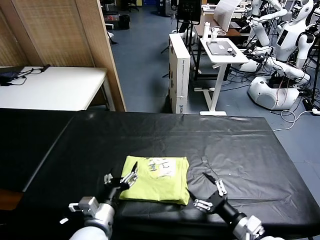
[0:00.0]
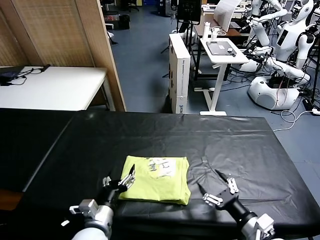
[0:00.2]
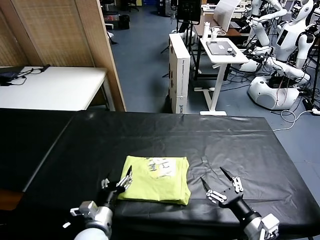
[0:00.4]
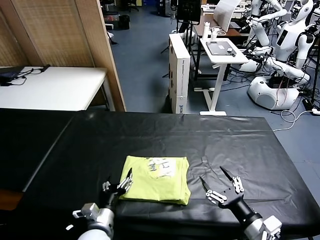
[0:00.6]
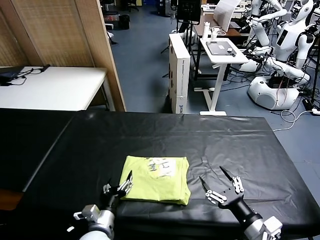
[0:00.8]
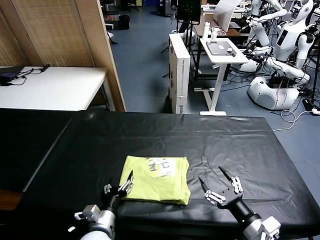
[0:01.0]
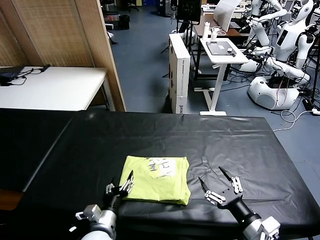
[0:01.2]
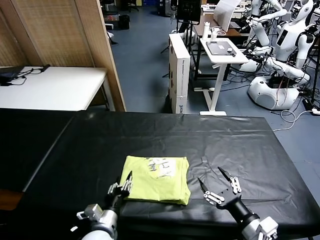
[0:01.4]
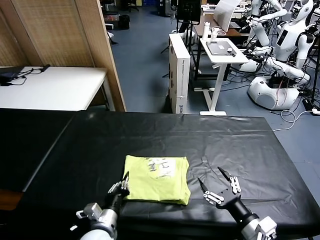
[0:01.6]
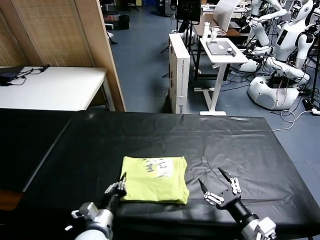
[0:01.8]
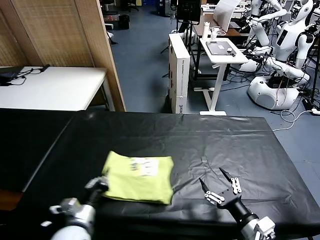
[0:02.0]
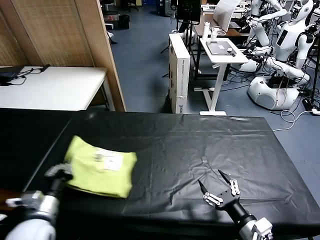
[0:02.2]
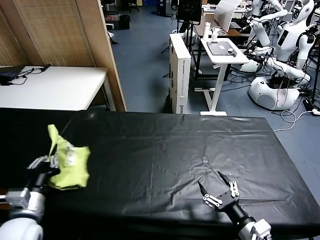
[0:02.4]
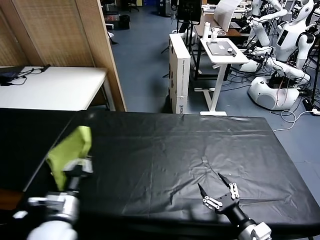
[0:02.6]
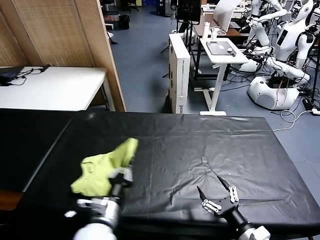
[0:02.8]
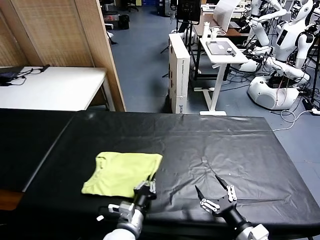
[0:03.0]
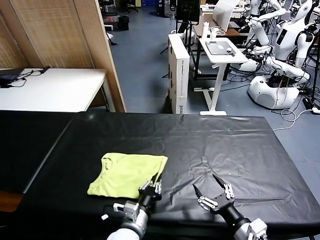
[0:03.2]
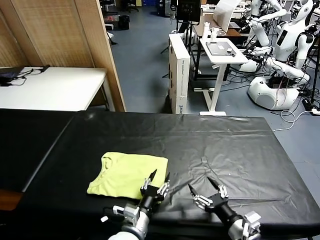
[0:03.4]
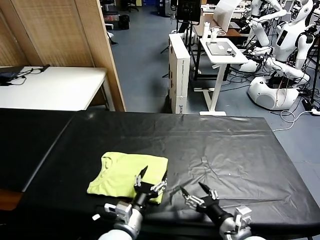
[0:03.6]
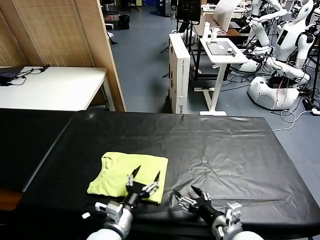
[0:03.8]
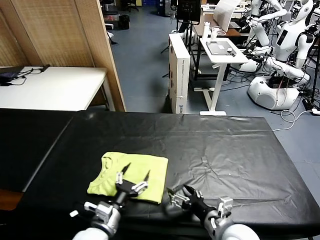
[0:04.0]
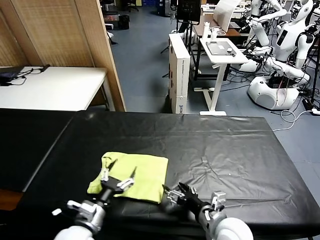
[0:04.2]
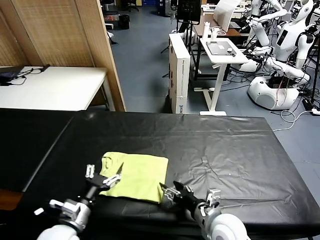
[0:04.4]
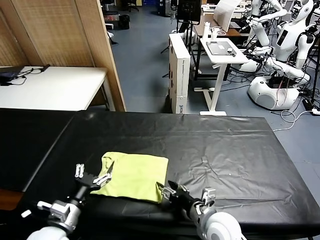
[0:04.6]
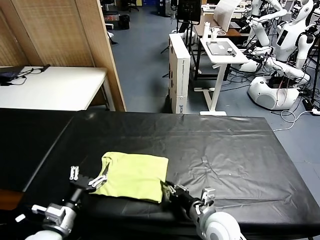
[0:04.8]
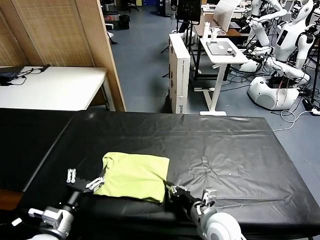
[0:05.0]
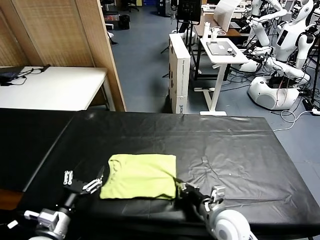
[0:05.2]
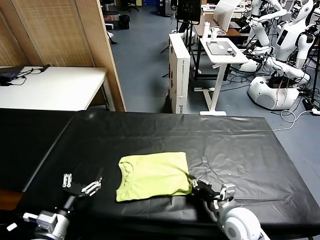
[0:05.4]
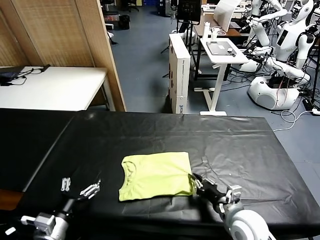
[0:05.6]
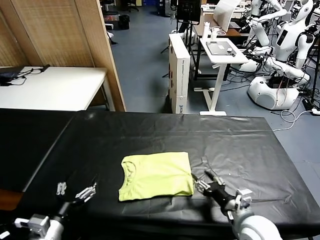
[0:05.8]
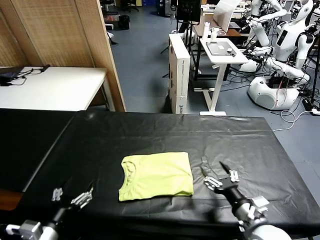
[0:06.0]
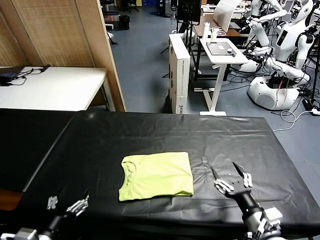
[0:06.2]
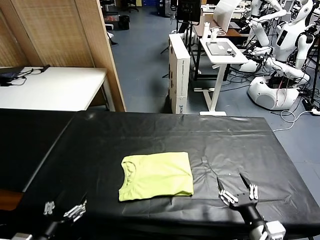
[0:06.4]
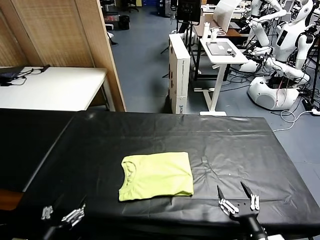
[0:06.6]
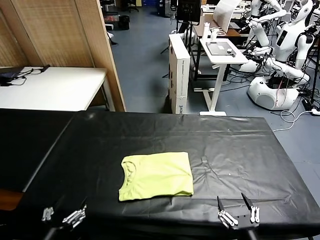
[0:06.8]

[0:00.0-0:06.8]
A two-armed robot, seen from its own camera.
Task of the whole recording: fold and organize the clothes.
Step, 0.0 to 3.4 s: Flip the folded clothes over with left gripper.
Step, 3.6 to 5.8 s: Drag the clothes to the center of the table.
0.0 to 1.4 s: The left gripper closes up.
1.4 to 2.8 s: The left gripper moves to the right, about 10 cm.
2.8 to 4.0 s: The right gripper travels to the left and forward by approximately 10 cm, while the left gripper travels to the left by roughly 15 cm, and opens its fingers.
4.0 to 5.4 s: The left gripper moves to the left, approximately 5 cm. The right gripper moves some 5 cm, and closes up.
5.4 to 6.8 s: The left gripper travels backward by some 5 cm, while the right gripper moves backward, roughly 20 cm, and opens up.

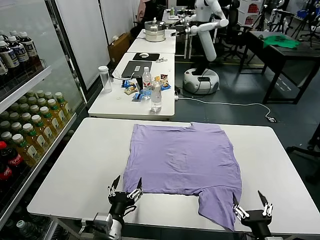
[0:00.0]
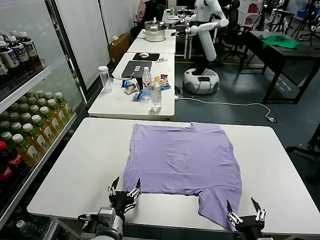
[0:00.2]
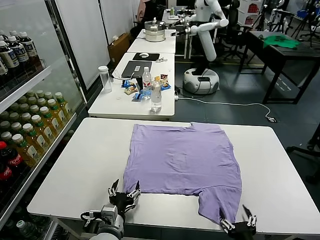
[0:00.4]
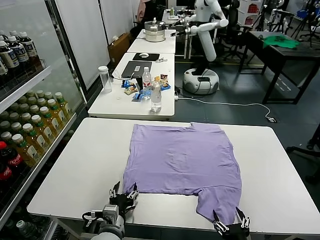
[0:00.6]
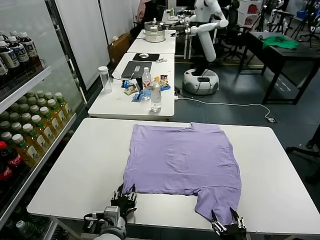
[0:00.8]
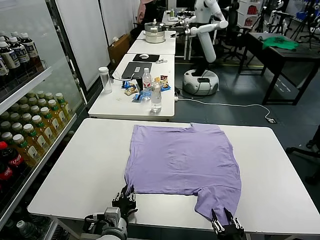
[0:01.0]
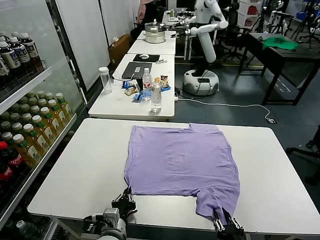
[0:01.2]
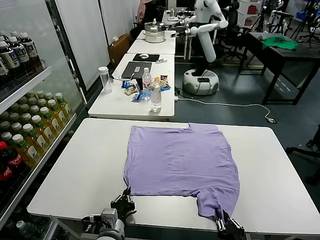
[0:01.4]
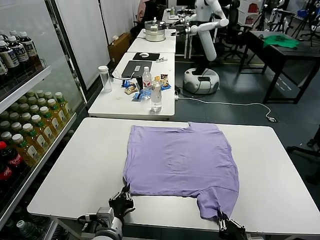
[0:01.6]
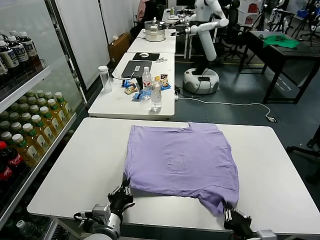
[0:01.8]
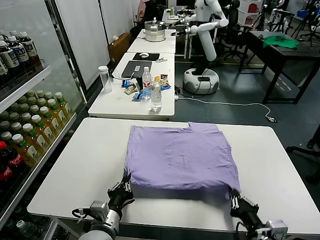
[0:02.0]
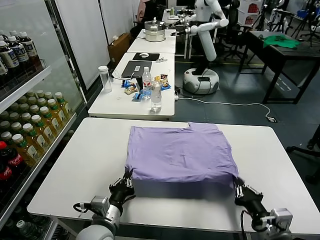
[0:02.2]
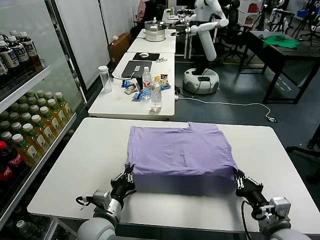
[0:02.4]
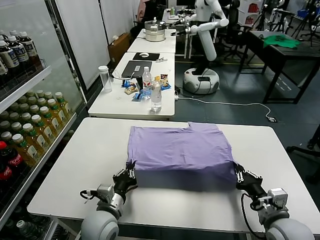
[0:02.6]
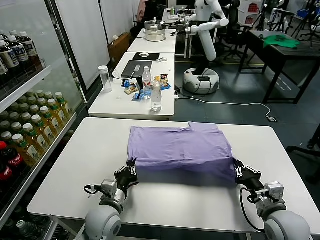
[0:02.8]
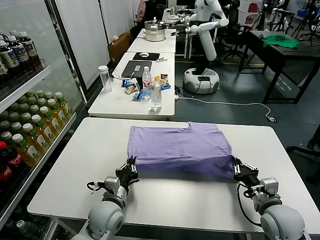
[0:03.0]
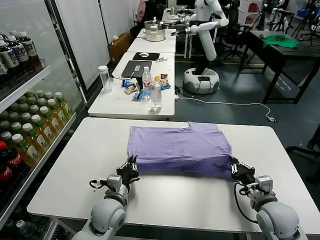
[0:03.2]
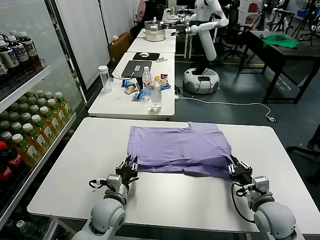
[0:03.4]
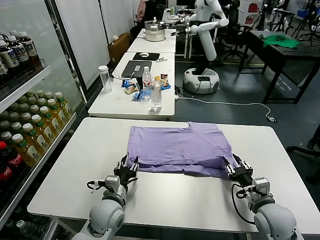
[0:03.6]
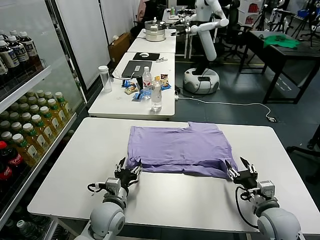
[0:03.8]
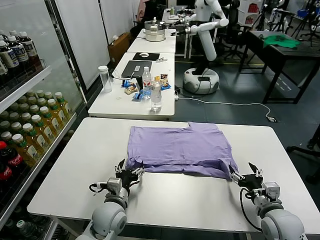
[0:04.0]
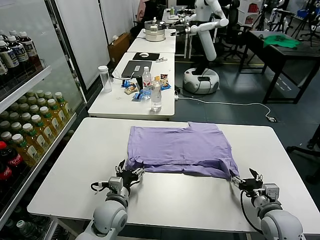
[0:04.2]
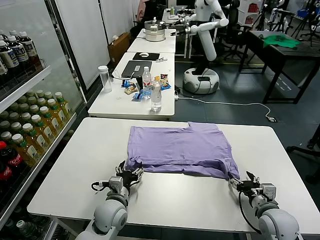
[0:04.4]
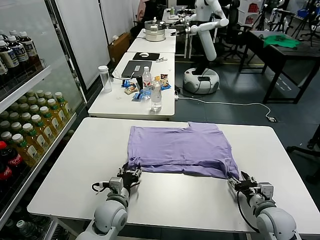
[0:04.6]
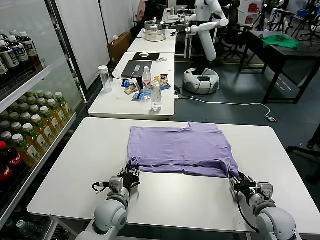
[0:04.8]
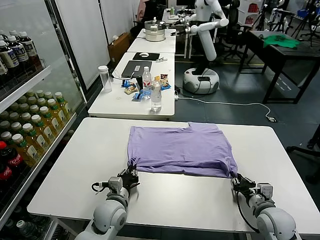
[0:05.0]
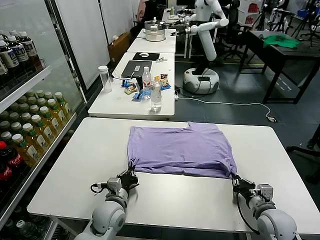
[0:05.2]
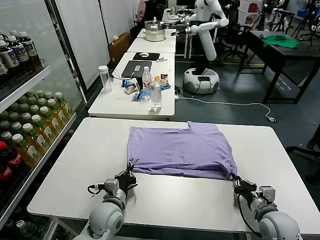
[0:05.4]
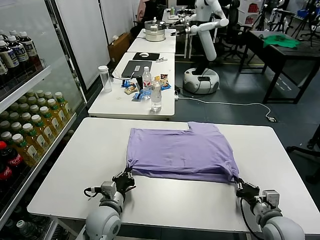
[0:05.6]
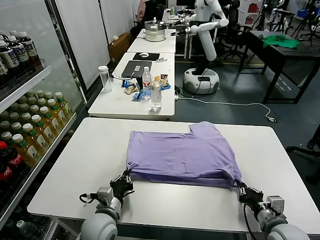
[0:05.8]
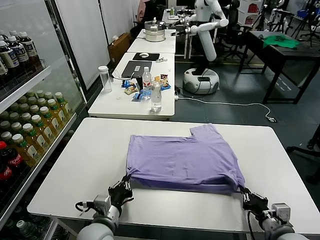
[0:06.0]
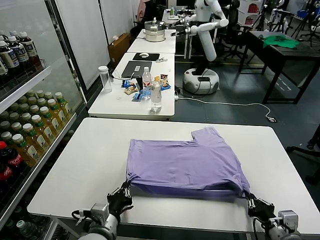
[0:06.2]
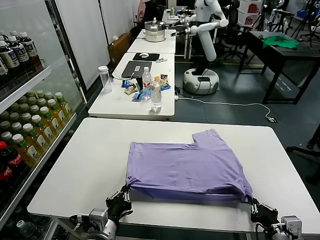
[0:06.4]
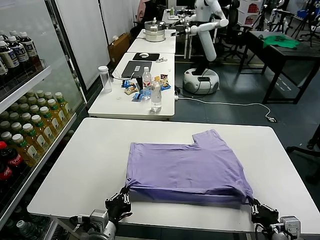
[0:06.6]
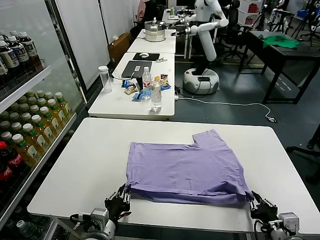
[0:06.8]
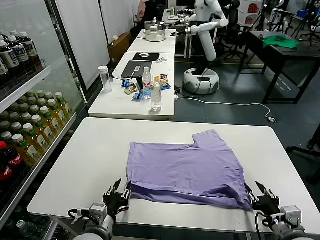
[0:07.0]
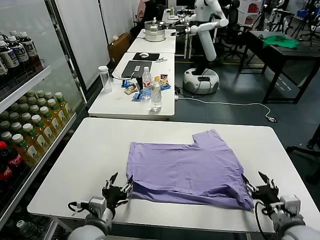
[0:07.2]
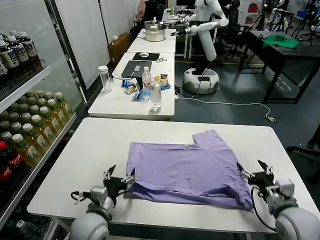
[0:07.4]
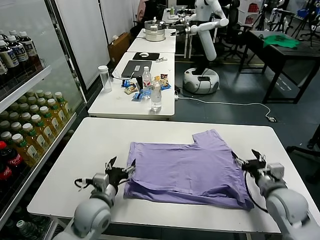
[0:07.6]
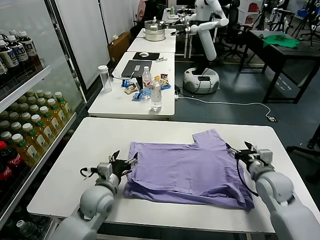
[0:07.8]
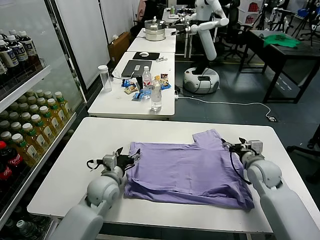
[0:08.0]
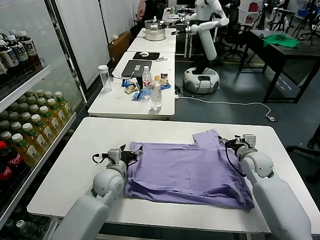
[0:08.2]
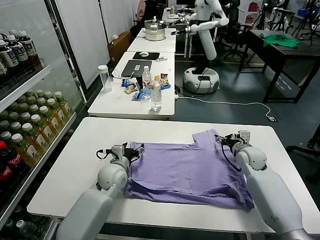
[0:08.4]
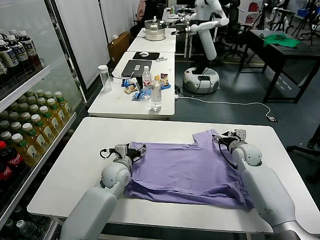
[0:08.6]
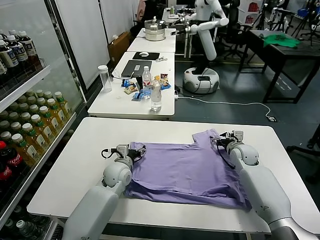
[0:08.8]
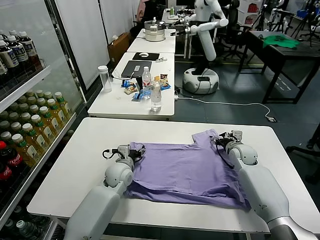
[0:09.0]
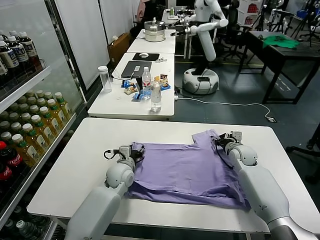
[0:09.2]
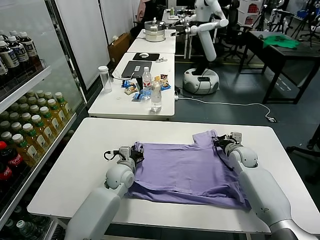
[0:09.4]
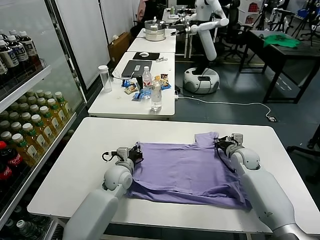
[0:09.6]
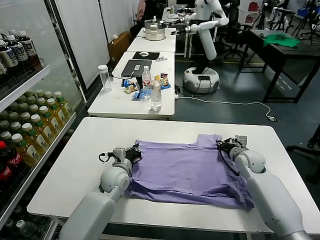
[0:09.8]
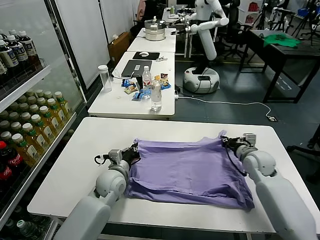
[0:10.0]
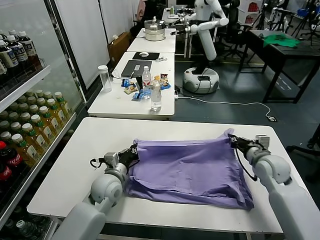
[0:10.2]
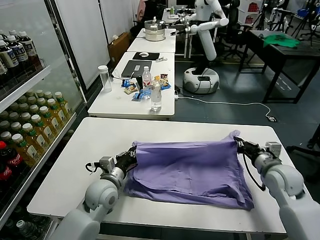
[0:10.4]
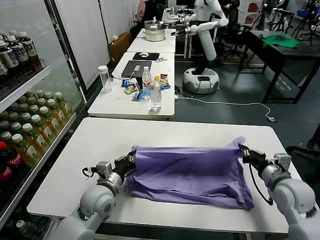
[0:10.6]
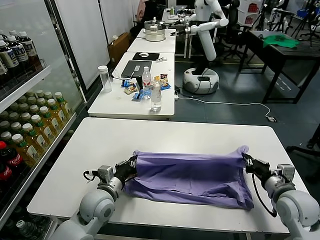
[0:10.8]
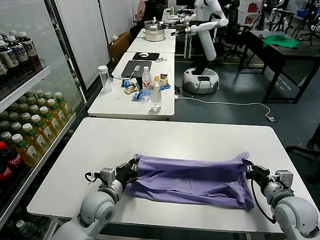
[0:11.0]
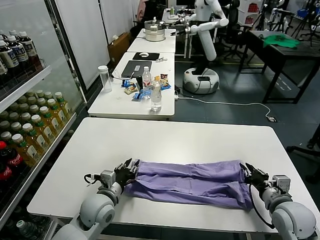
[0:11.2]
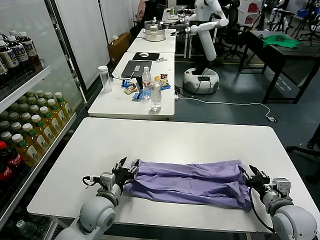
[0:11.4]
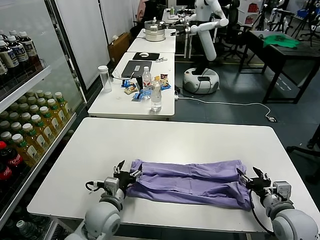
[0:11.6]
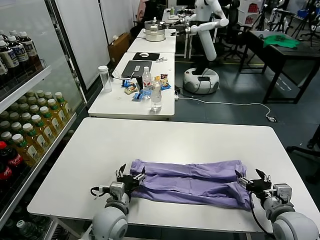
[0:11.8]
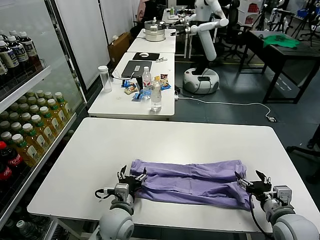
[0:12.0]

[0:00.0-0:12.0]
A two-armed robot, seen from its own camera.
Task of the whole recording: fold and organize the clothes.
Step, 0.0 to 1.4 s: use both grippers simultaneously to clamp the lower edge of the clothing fabric.
Step, 1.6 to 3.6 s: use both grippers to drag the lower edge of the fabric forward and fold it over the upper edge.
Step, 3.8 to 6.8 s: Drag the clothes downward with both gripper.
Step, 7.0 to 9.6 s: use both grippers simultaneously to clamp the upper edge of the clothing fabric.
Step, 9.8 to 11.4 s: use both grippers to drag the upper edge of the fabric backward and fold it over the lower edge.
1.6 to 3.0 s: The left gripper heads forward, covering approximately 10 cm. The right gripper goes roughly 15 cm forward.
3.0 to 4.4 s: The left gripper opens. Meanwhile the right gripper opens its fingers.
4.4 to 6.0 s: Both grippers travel together backward, some 10 cm. The right gripper closes up; the left gripper closes up.
6.0 to 7.6 s: The right gripper shifts roughly 15 cm forward, and opens up; the left gripper is displaced forward by about 5 cm, and opens its fingers.
7.6 to 9.0 s: Both grippers move forward, roughly 15 cm.
9.0 to 10.4 s: The right gripper goes roughly 20 cm backward and upward, and closes its fingers, while the left gripper travels backward by about 10 cm, and closes its fingers.
10.4 to 12.0 s: The right gripper heads backward, covering approximately 10 cm, and opens; the left gripper shifts about 10 cm backward and to the right, and opens up.

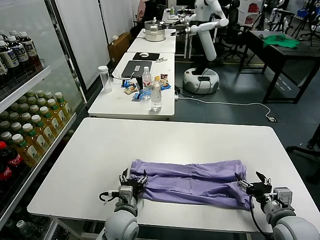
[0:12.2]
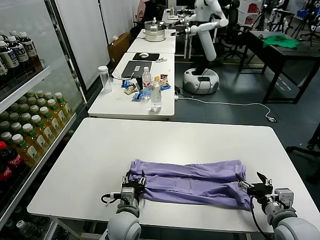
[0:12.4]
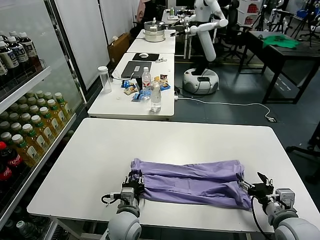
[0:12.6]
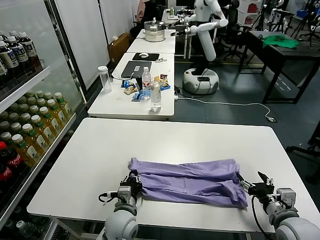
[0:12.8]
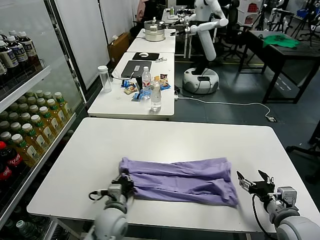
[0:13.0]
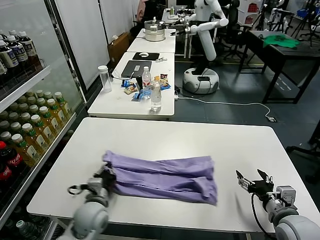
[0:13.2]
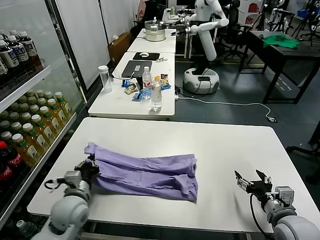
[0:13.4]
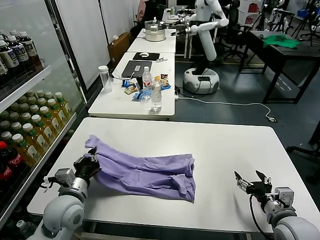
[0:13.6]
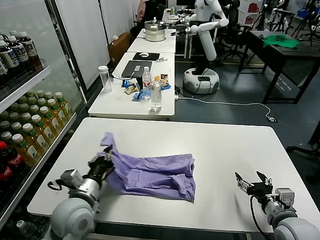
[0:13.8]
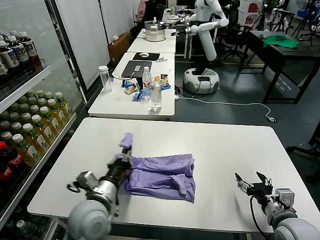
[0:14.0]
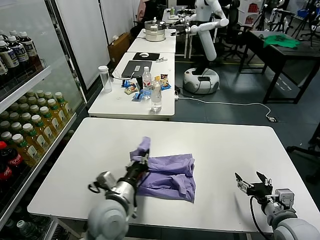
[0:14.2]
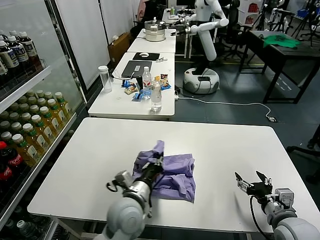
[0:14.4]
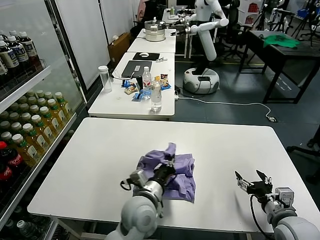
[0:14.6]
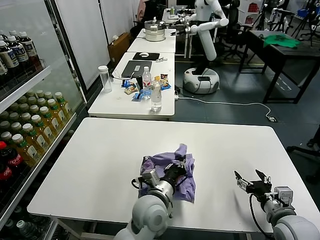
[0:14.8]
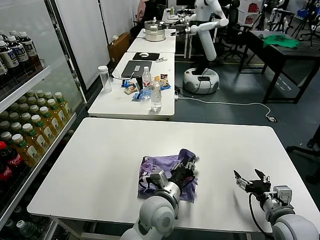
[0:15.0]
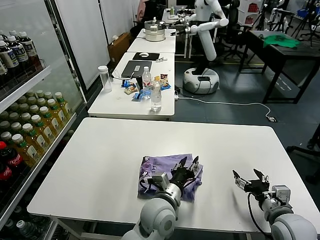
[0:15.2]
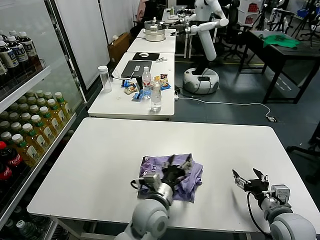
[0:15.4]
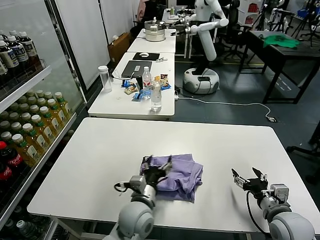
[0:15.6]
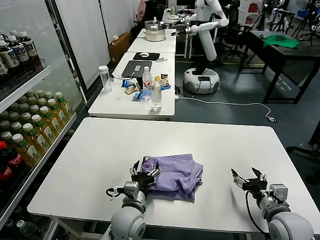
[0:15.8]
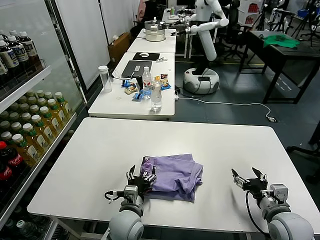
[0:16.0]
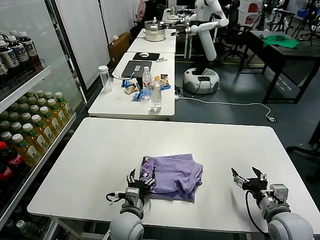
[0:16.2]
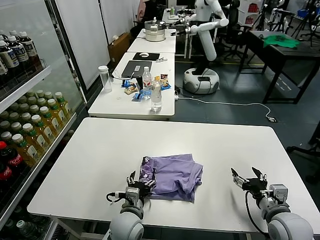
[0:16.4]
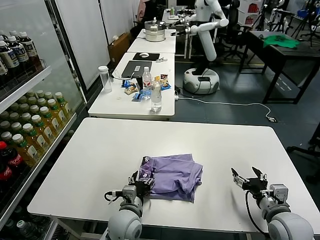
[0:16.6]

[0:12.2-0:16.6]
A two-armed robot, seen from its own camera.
Task of the whole recording: fold and organize the clothes.
Step, 12.8 to 15.0 s: use the left gripper to drag the left edge of the fabric to the left and folds it over the right edge.
12.2 to 13.6 s: The left gripper moves to the left and upward, about 15 cm, and closes.
13.6 to 15.2 s: The left gripper shifts some 25 cm to the right, and opens up.
15.2 to 16.6 s: The left gripper travels to the left and downward by some 10 cm.
